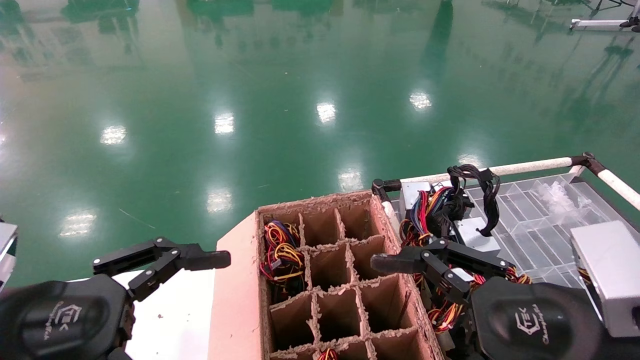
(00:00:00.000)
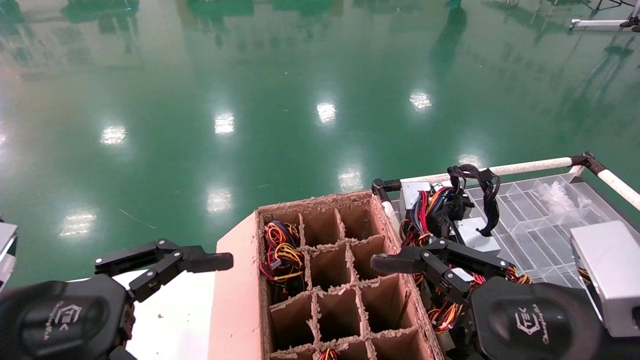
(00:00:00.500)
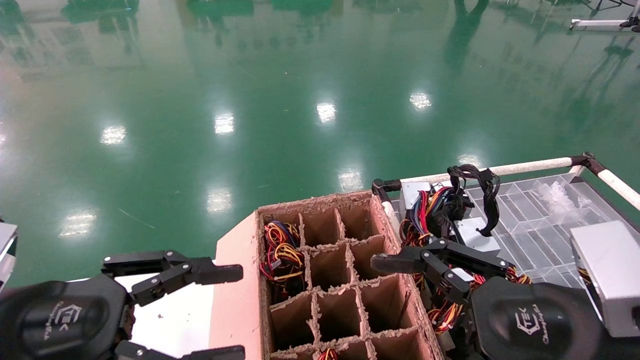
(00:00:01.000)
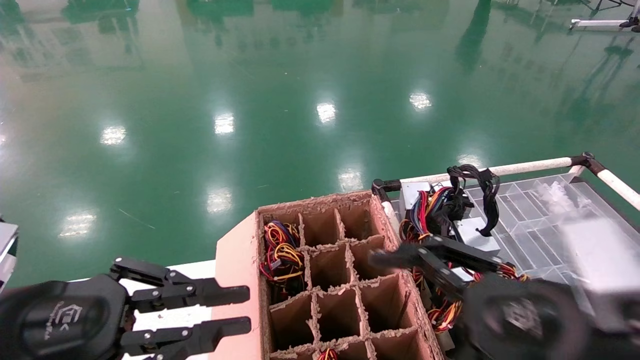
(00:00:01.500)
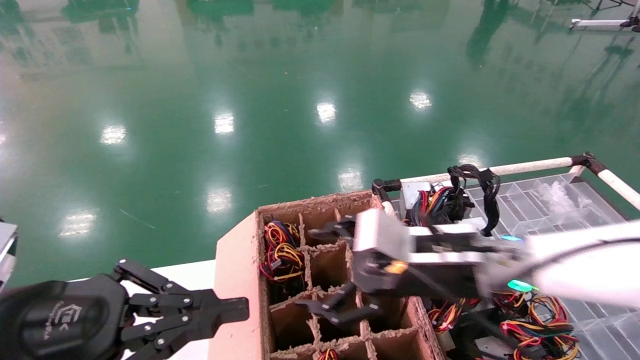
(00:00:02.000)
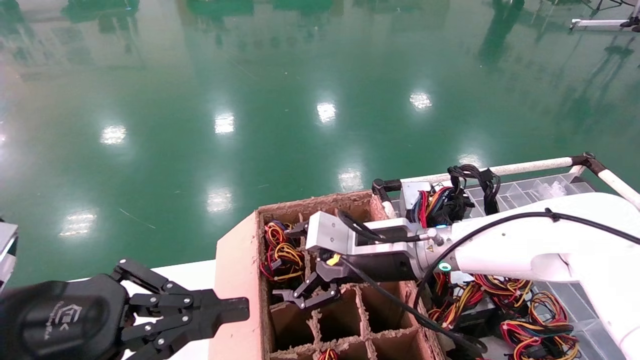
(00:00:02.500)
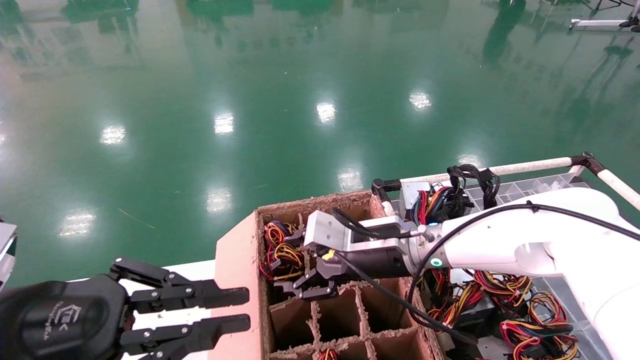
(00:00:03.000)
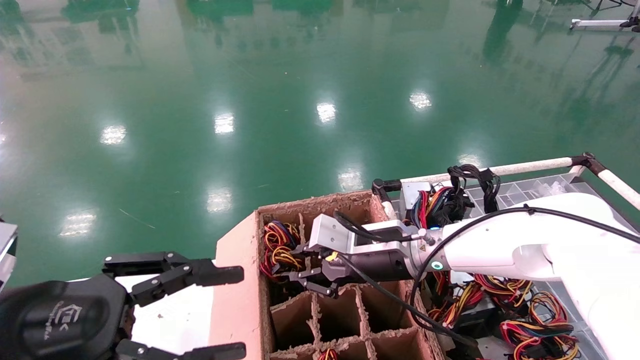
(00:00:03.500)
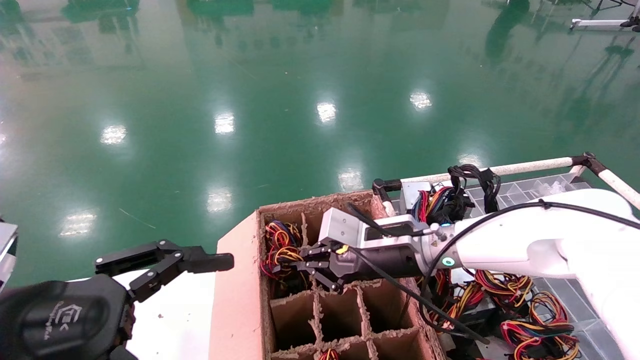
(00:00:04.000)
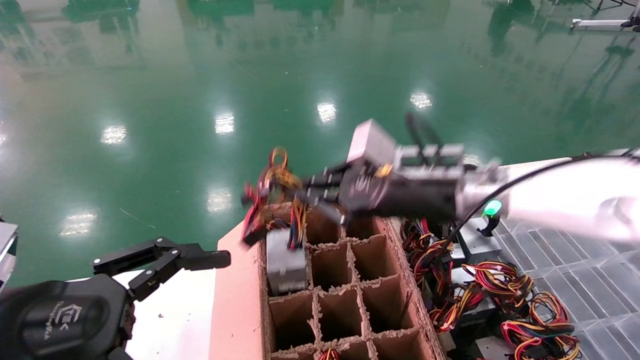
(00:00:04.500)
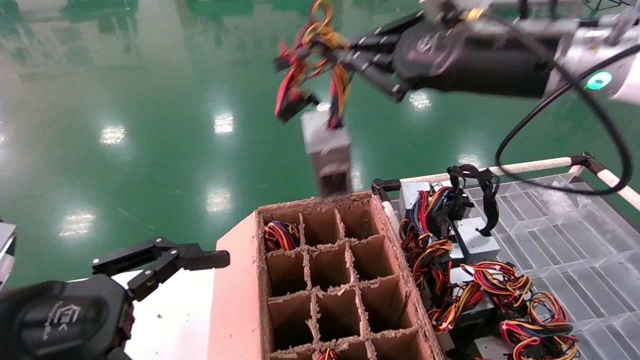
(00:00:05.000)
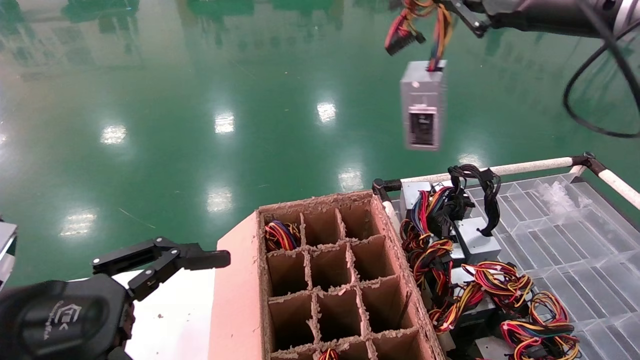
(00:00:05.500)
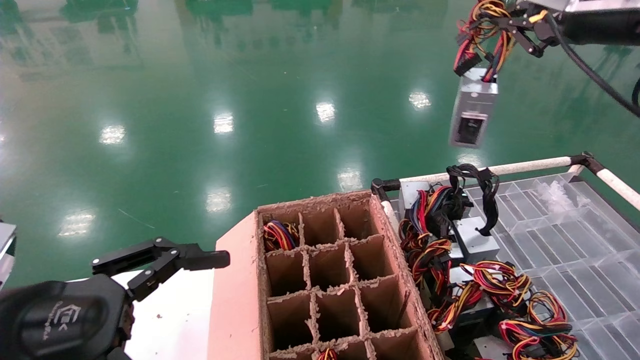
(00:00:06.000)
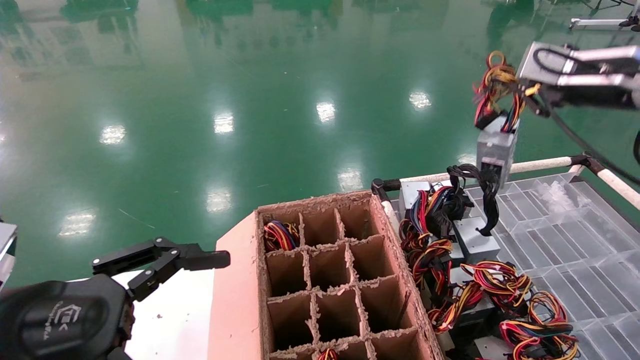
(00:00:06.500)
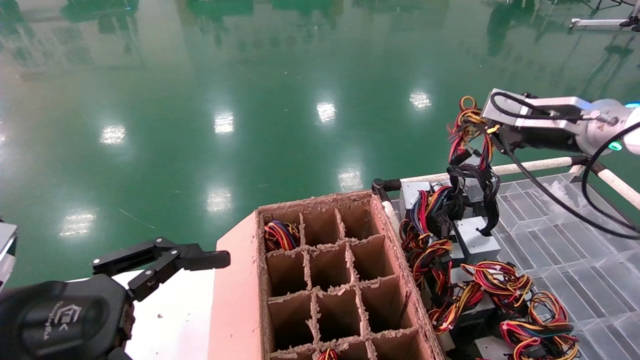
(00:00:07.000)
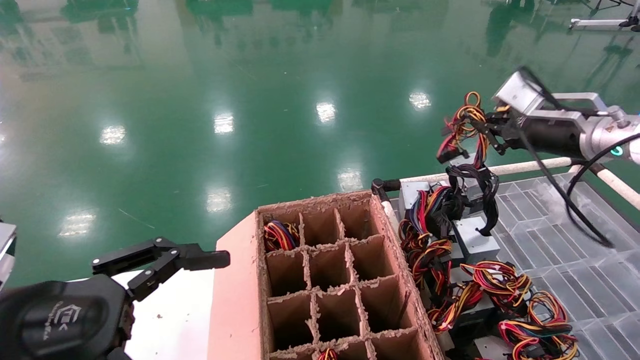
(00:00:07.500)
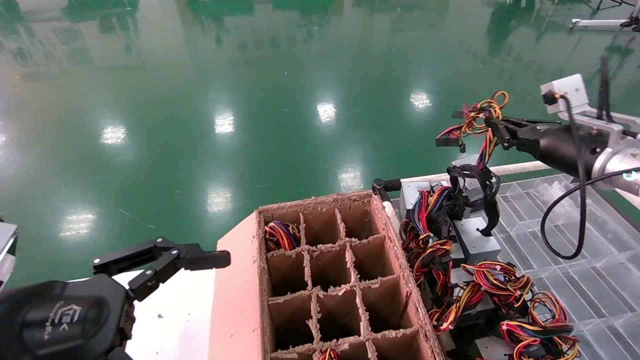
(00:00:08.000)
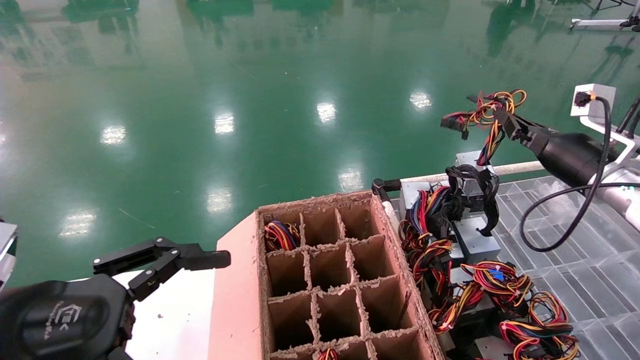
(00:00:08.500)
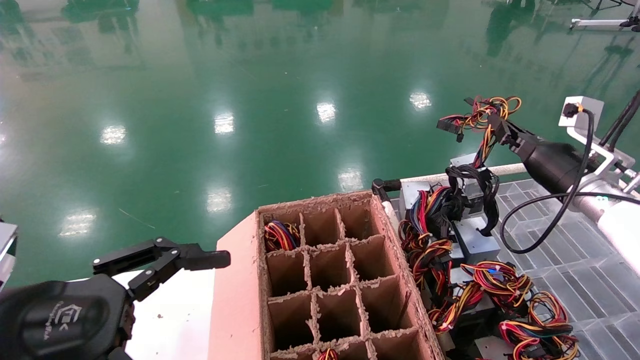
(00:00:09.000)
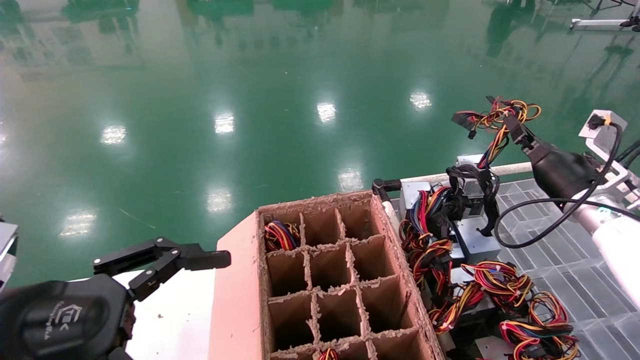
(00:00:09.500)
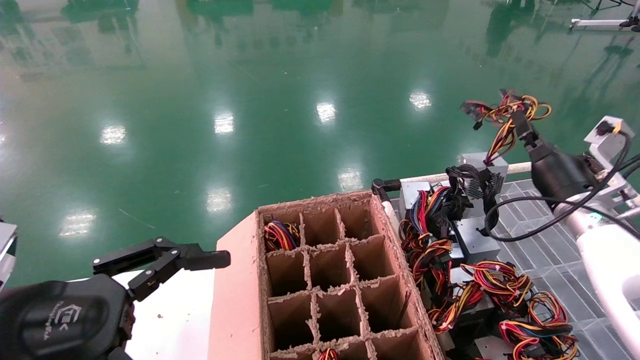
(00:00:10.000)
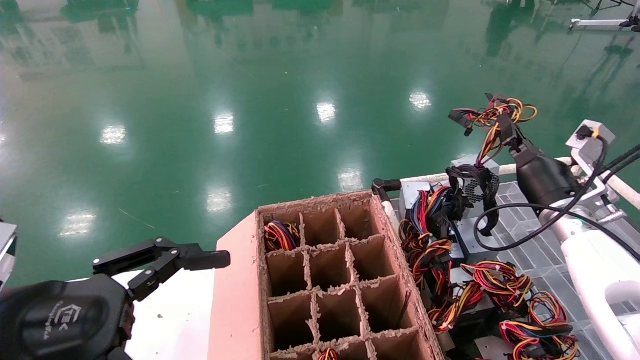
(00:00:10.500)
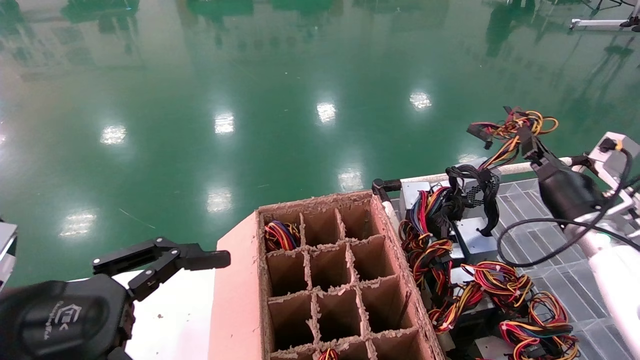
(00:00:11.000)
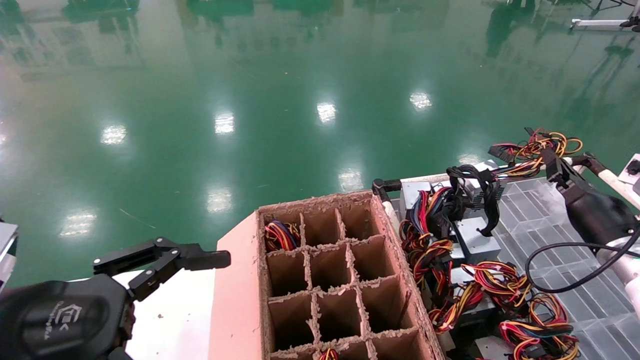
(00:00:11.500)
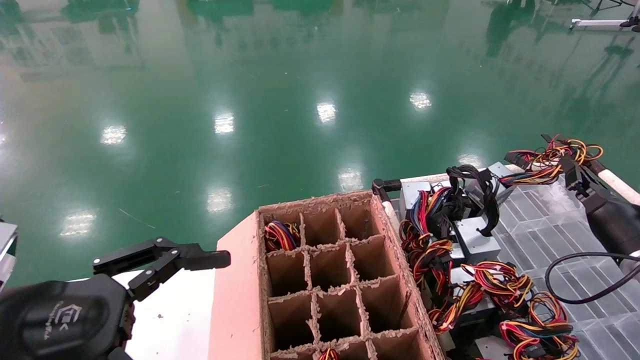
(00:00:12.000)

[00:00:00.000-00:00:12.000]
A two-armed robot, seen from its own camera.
Step, 00:00:02.500 to 00:00:04.000: Grab and lift the power supply from the large box.
00:00:00.000 to 00:00:02.000: The left gripper closes up. Meanwhile the right gripper travels forward and to the left by roughly 15 cm.
00:00:02.000 to 00:00:04.000: The left gripper opens. The right gripper heads forward, covering about 10 cm, and closes.
00:00:04.000 to 00:00:06.000: The right gripper shifts approximately 35 cm upward and to the right.
00:00:06.000 to 00:00:08.000: The right gripper heads downward, covering about 15 cm.
00:00:08.000 to 00:00:10.000: The right gripper goes about 5 cm downward.
00:00:10.000 to 00:00:12.000: The right gripper goes about 10 cm to the right and downward.

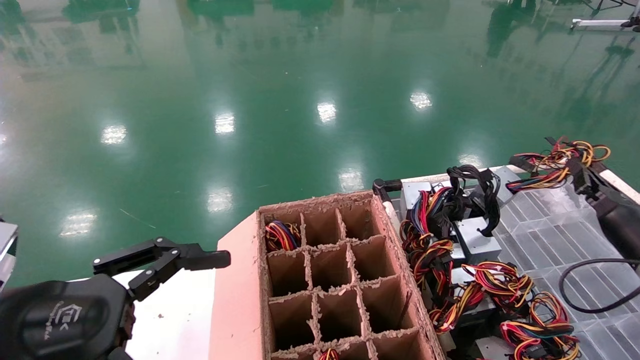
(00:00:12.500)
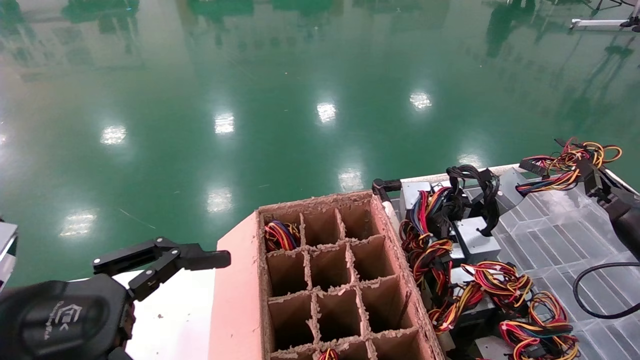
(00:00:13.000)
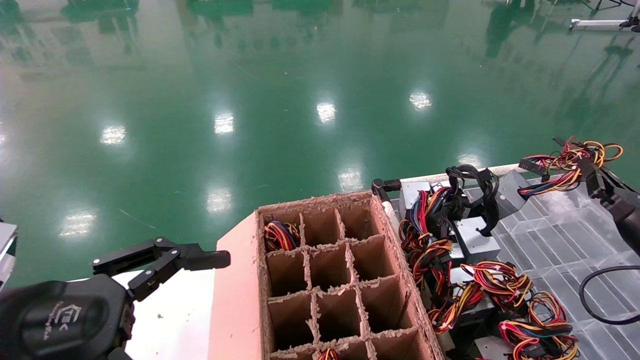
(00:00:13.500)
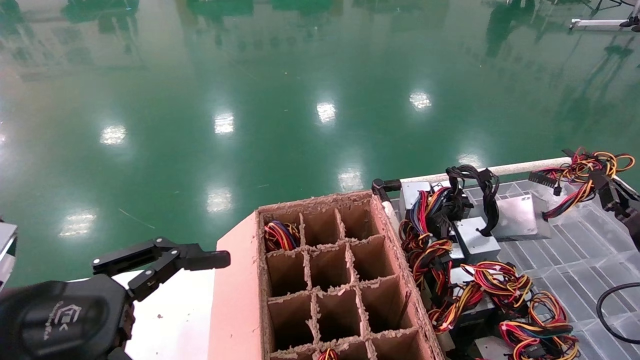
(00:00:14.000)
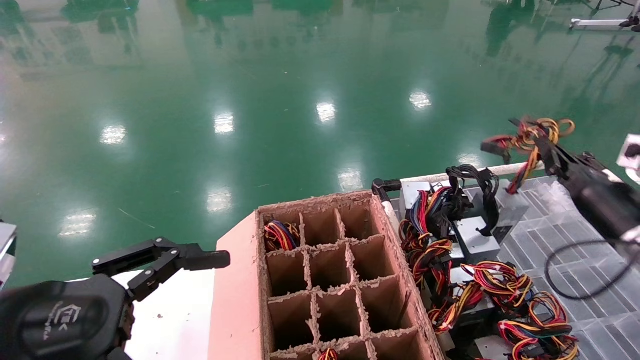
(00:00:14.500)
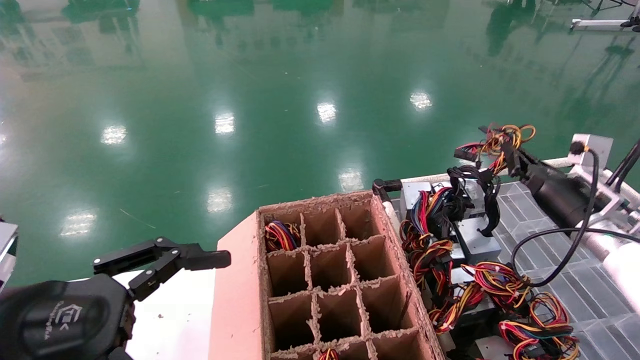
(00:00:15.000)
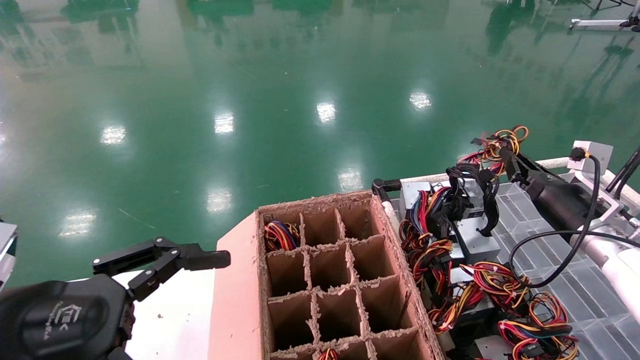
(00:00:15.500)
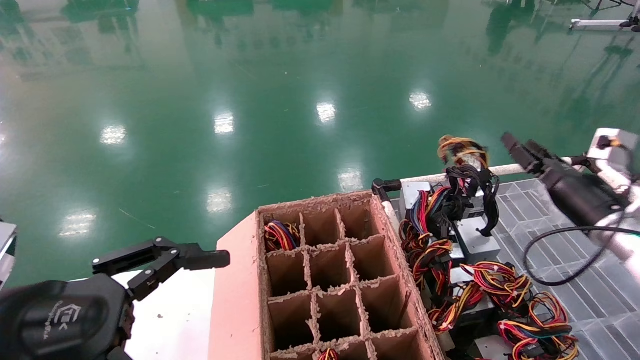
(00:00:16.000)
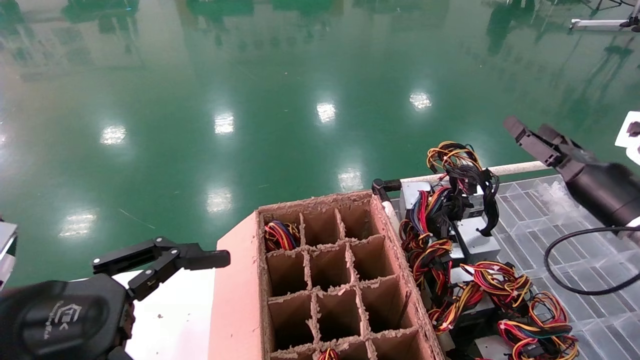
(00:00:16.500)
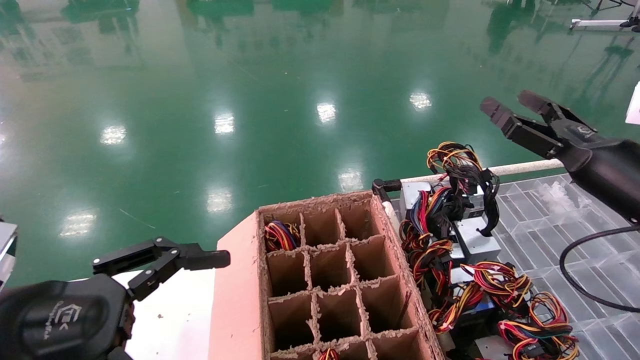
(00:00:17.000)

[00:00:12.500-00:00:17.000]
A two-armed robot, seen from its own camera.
Step, 00:00:12.500 to 00:00:15.500: Place the power supply on the operating table.
00:00:12.500 to 00:00:14.500: The grippers move only a little.
00:00:14.500 to 00:00:17.000: The right gripper is displaced upward, backward and to the left by about 10 cm, and opens.
